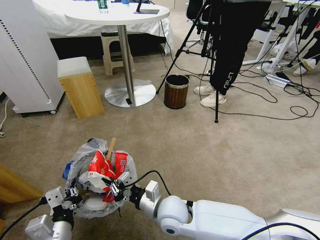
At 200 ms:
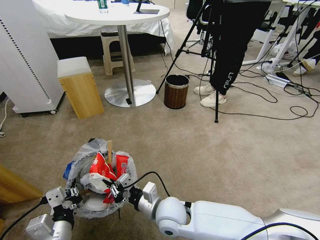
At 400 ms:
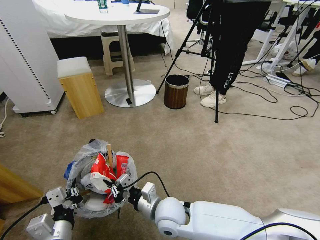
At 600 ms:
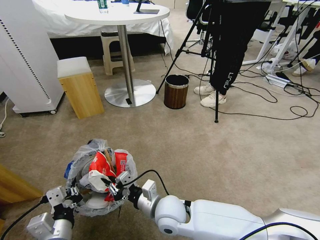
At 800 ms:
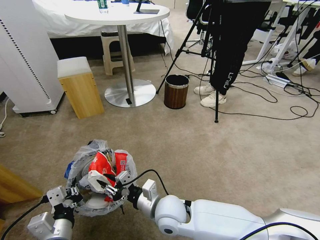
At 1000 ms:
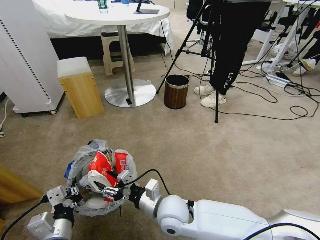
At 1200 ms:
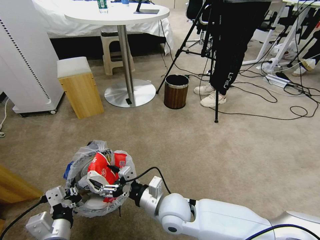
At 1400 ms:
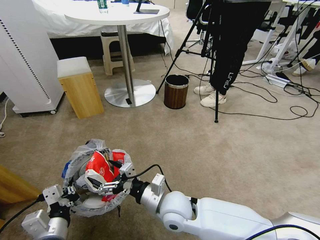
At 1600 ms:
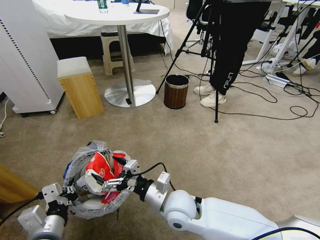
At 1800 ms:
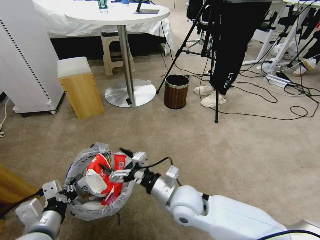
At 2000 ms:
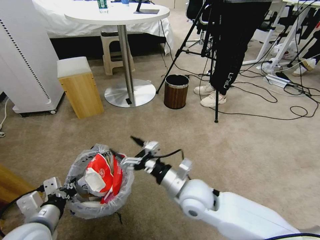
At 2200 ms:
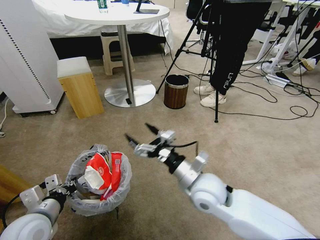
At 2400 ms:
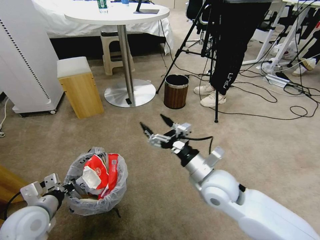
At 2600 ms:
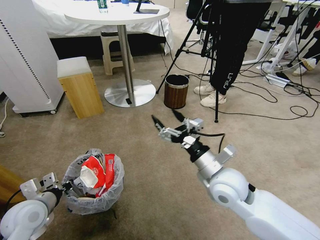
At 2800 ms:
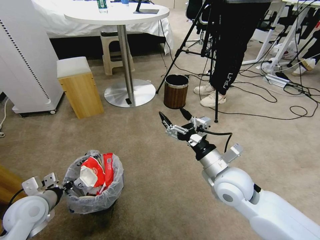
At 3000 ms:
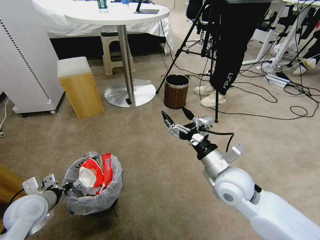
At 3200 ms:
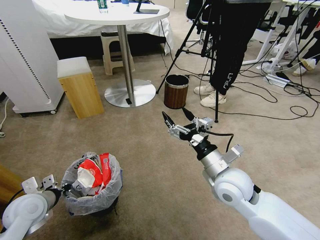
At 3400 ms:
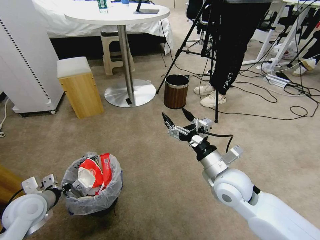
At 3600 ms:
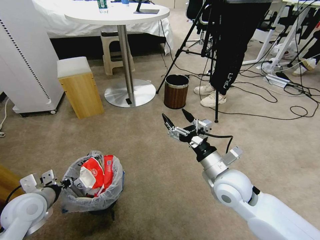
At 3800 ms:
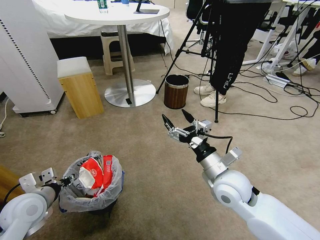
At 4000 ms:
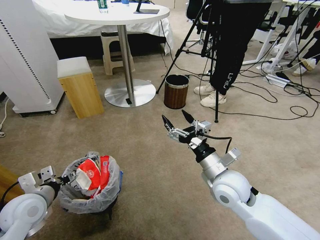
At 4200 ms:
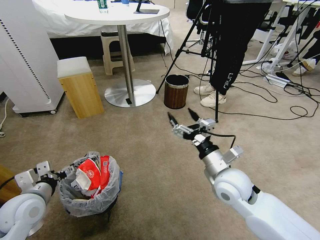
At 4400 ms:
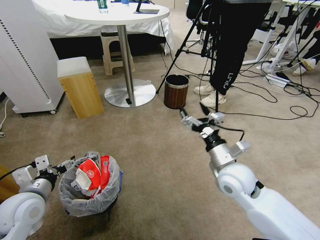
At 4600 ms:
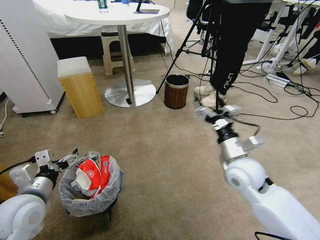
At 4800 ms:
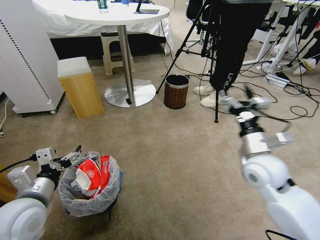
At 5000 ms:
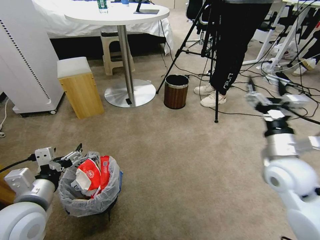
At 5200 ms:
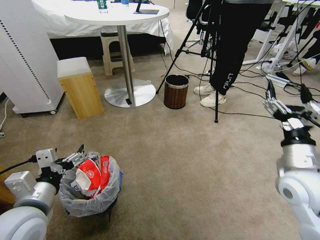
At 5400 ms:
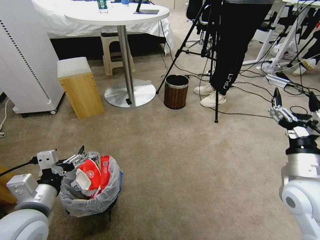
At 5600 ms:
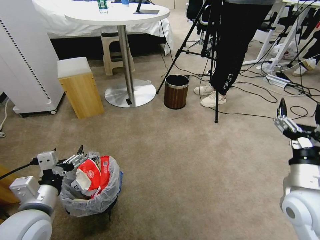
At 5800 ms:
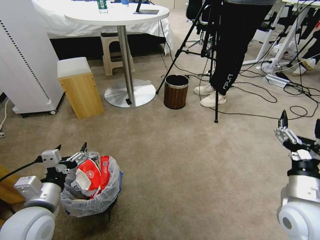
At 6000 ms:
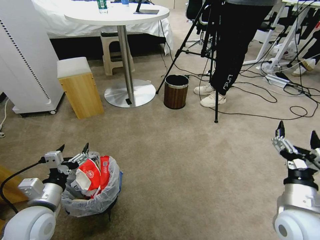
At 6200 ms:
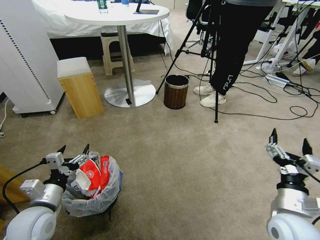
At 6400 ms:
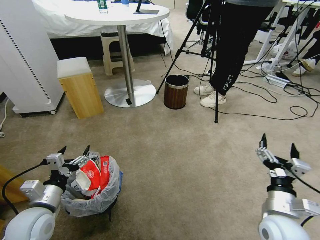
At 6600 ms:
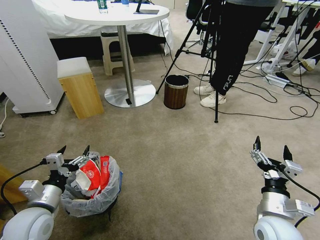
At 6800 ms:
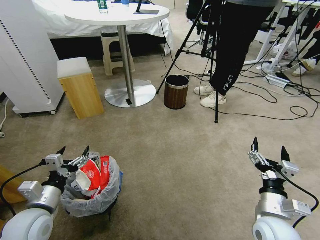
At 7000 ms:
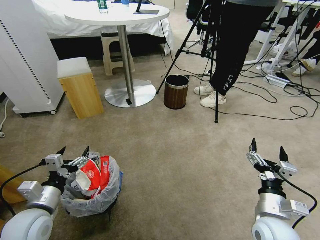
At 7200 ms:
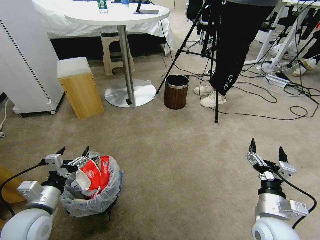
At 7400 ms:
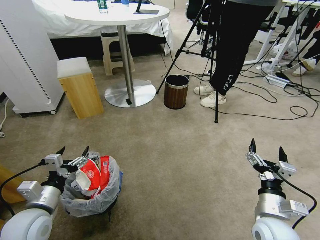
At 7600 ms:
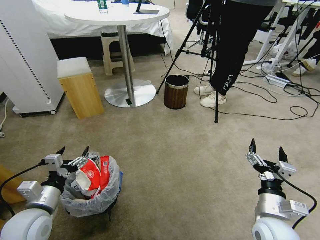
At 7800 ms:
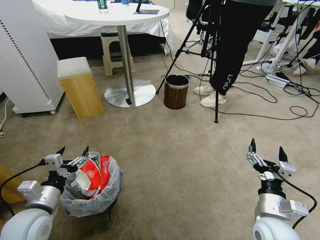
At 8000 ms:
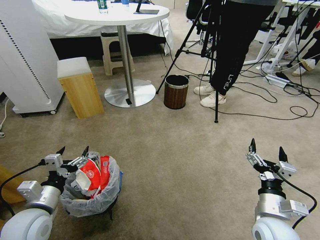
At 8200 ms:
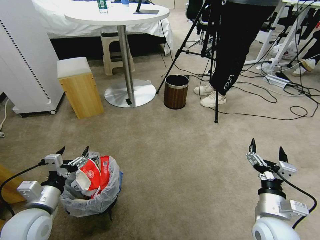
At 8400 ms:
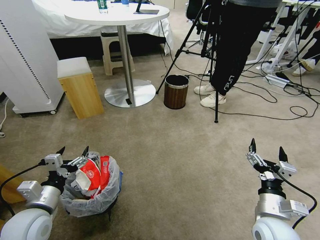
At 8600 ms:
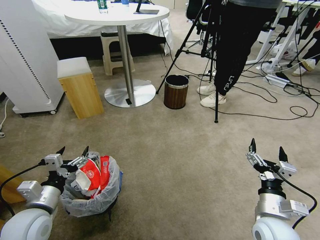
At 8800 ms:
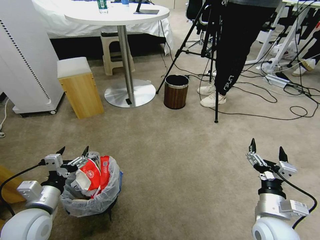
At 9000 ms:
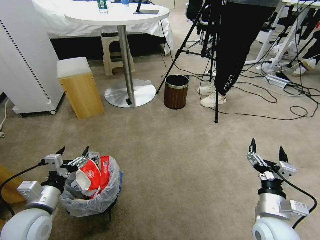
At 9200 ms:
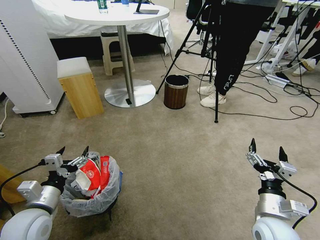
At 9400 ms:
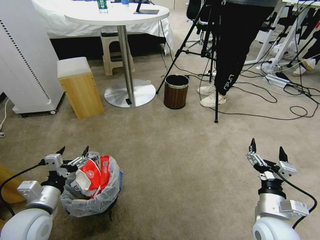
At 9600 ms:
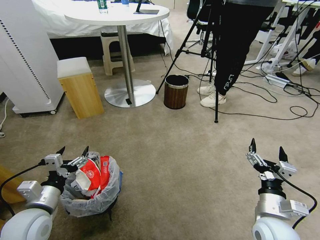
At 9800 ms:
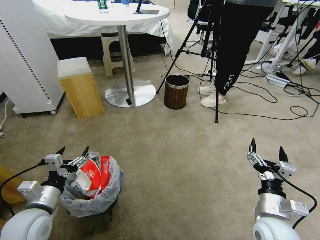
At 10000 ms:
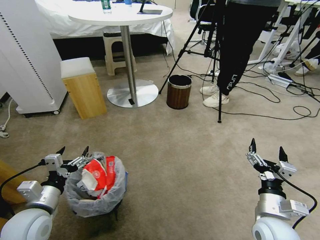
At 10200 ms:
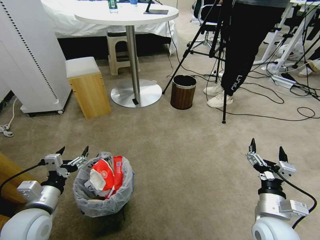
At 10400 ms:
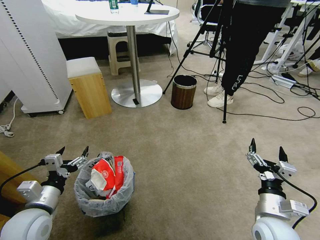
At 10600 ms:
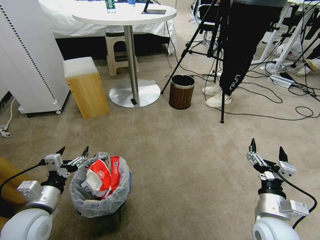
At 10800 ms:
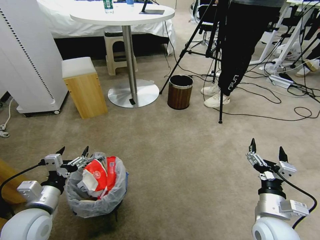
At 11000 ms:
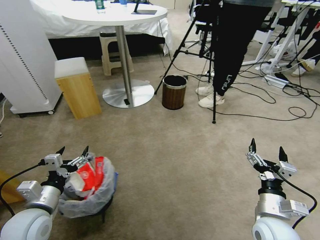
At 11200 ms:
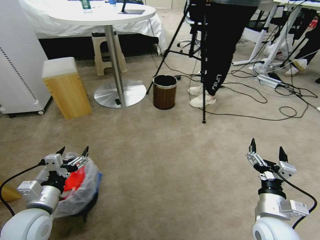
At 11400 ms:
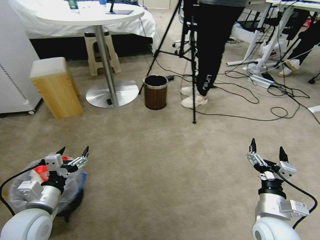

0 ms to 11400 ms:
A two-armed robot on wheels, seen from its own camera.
Task of the whole recording: Pick up the trash bin and place the garbage on the floor into it.
0 ms to 1400 ms: The right gripper opens.
1400 ms to 2800 ms: The right gripper heads to the right and upward, covering some 15 cm. The left gripper travels forward and to the left by roughly 15 cm.
2800 ms to 4200 ms: The left gripper opens up.
4200 ms to 5600 ms: The right gripper is displaced to the right and backward by approximately 15 cm; the left gripper travels to the right and backward by roughly 10 cm.
5600 ms to 7200 ms: The left gripper goes some 5 cm downward, while the right gripper heads downward, covering roughly 10 cm.
7200 ms to 10000 ms: Neither gripper changes place.

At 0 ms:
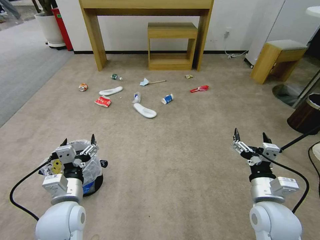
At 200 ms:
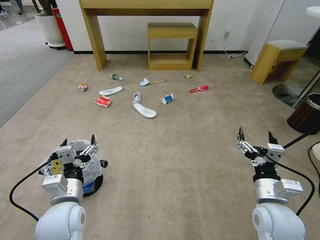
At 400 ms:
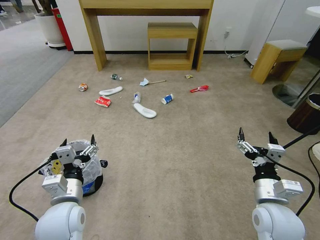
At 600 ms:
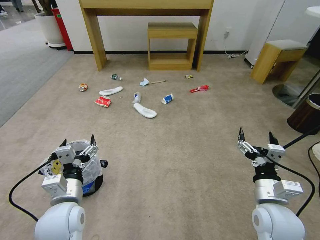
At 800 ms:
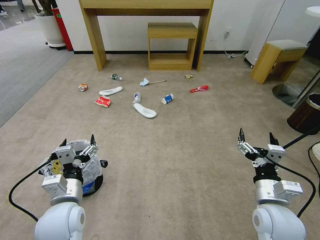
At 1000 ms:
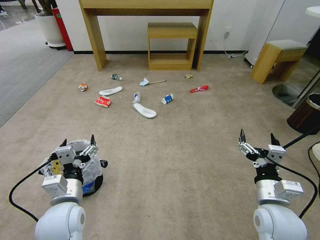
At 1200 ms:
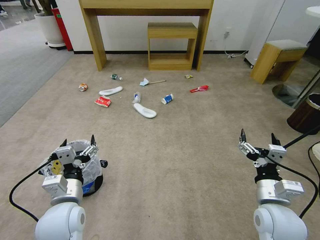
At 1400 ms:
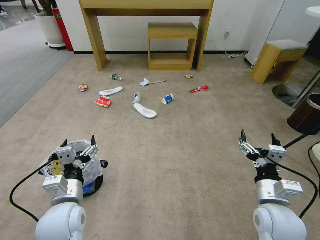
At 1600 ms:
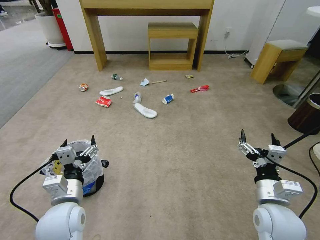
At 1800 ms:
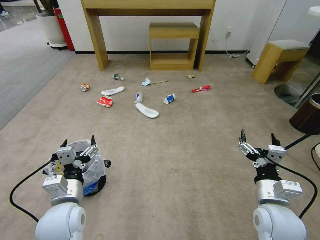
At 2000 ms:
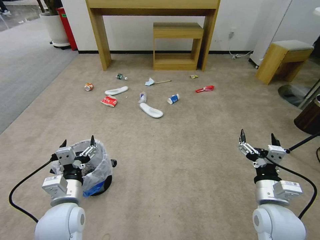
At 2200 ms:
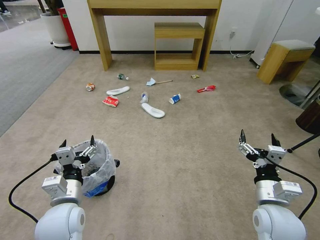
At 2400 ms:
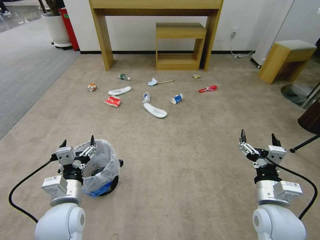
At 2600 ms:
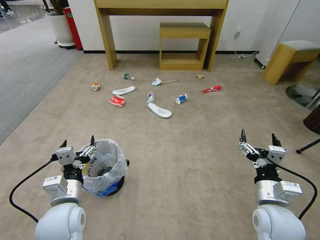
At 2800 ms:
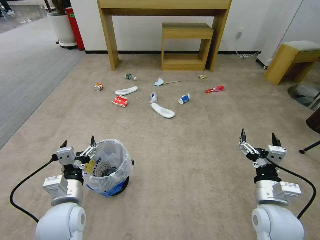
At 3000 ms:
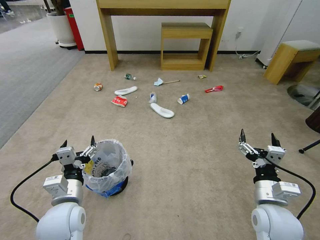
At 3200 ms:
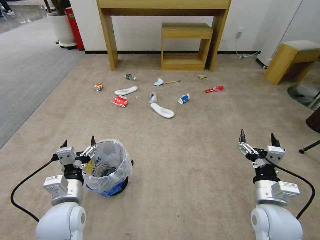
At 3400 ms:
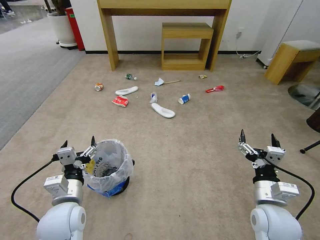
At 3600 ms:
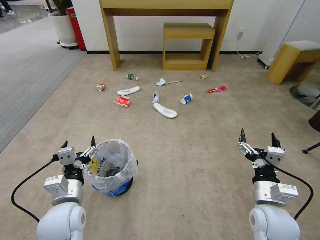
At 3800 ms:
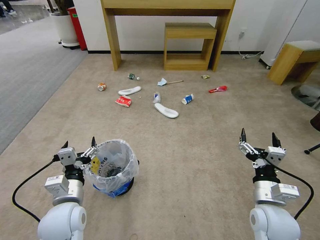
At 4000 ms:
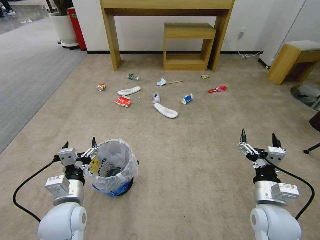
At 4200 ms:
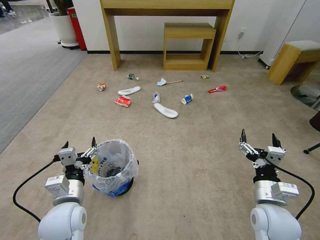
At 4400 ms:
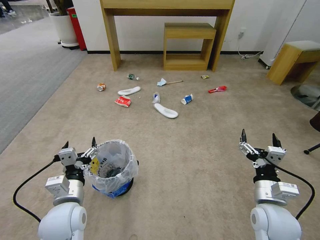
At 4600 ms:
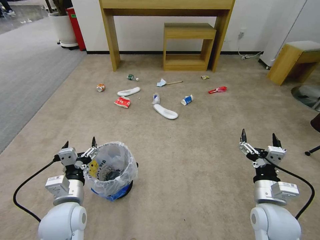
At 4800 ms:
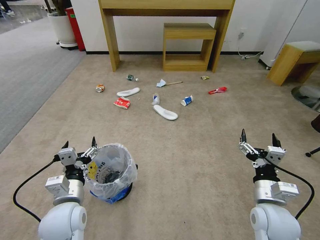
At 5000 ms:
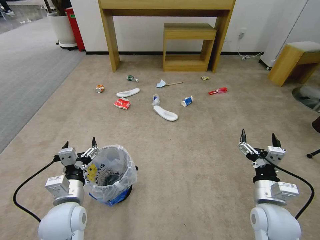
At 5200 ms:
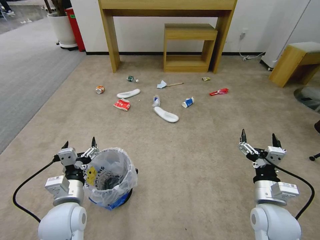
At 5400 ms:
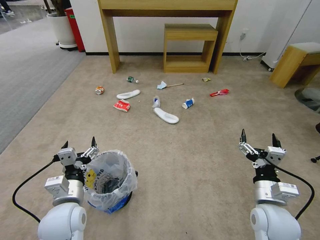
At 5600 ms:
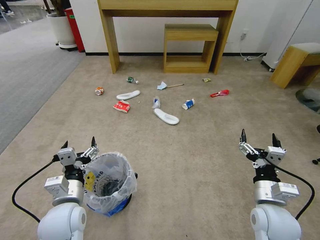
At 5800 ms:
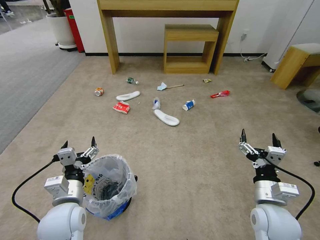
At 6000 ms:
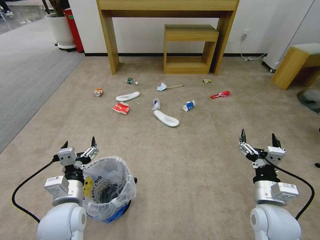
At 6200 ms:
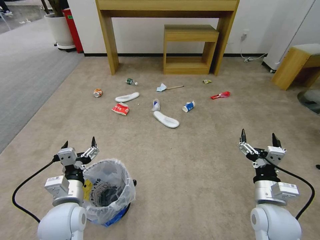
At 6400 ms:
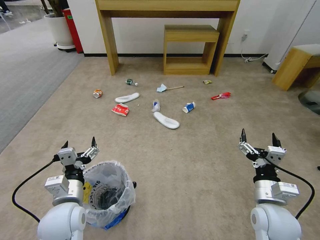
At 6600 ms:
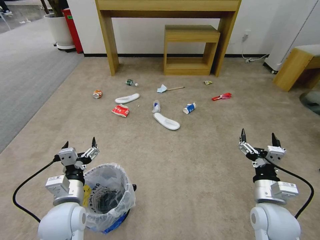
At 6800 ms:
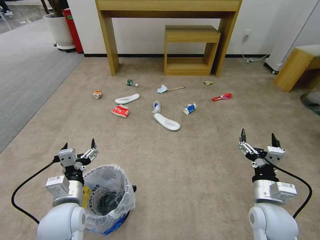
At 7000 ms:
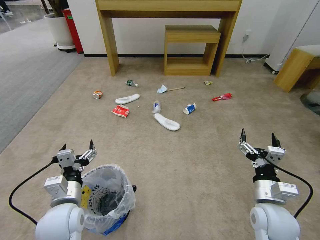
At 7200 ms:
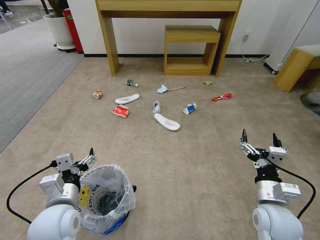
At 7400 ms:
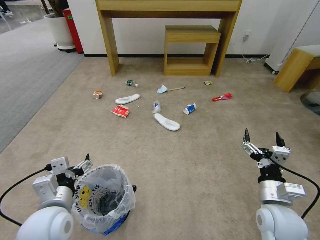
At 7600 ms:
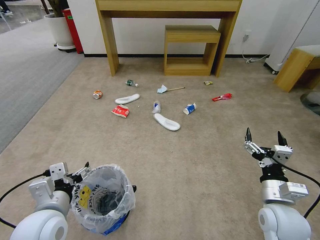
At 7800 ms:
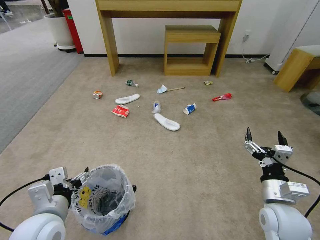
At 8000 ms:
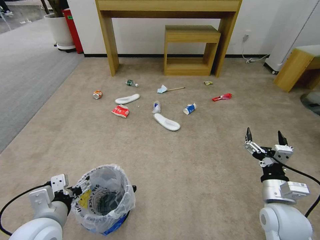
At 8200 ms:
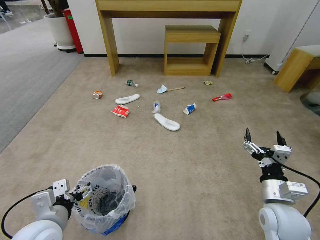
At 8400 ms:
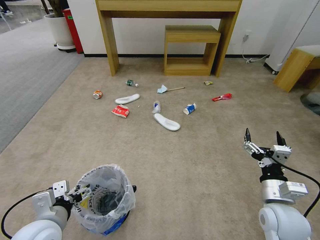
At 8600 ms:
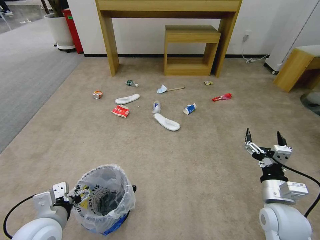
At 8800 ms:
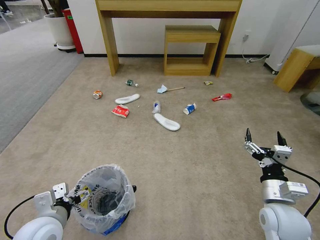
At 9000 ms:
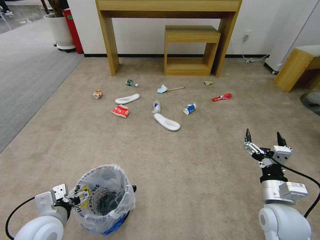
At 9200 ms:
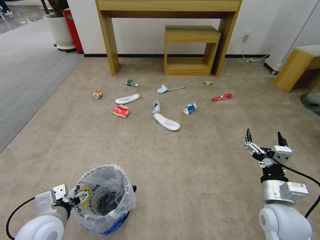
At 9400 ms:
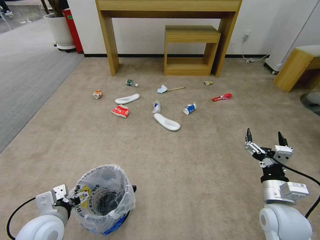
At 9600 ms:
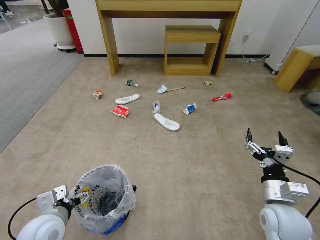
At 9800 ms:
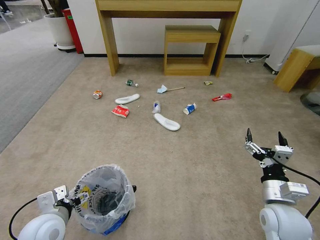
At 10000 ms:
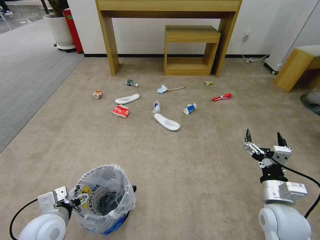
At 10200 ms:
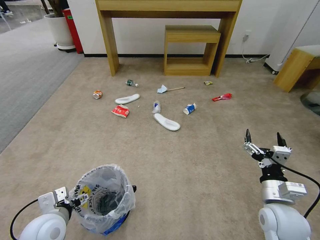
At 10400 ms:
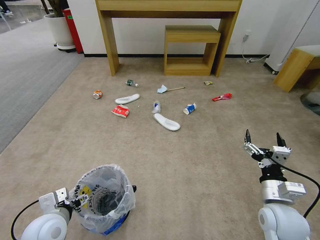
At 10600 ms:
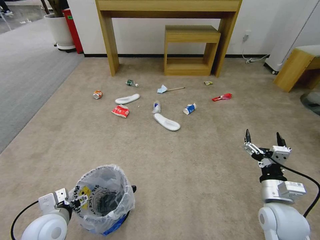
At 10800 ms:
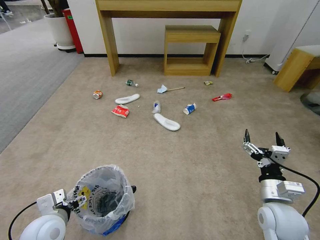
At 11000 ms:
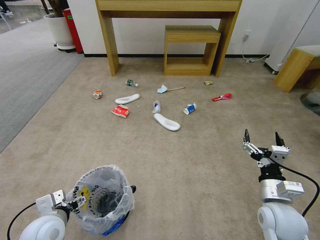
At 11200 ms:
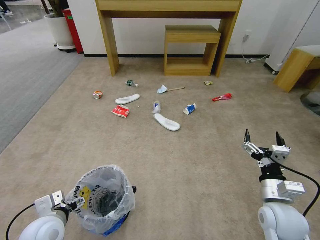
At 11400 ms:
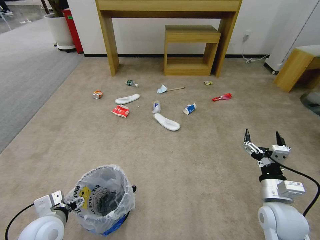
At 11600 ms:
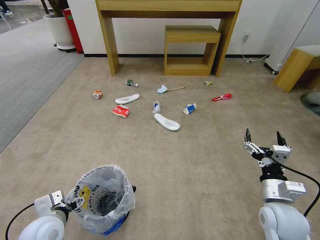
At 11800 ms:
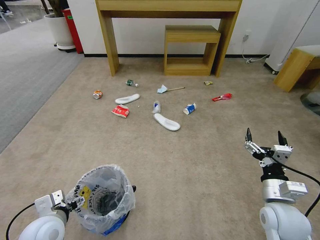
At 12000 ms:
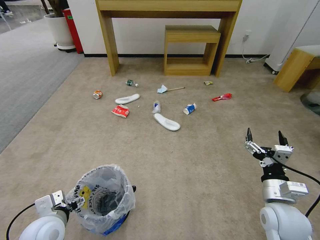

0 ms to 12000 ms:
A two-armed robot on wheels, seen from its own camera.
Task of the whole recording: Pick up the trash bin and place the garbage on the floor into it.
1600 ms to 3000 ms: The two grippers keep their place.
3000 ms to 6000 ms: Both grippers stay put.
6000 ms to 7600 ms: The left gripper ends up roughly 5 cm from where it was.
7600 ms to 9000 ms: The left gripper shifts about 5 cm downward.
9000 ms to 10400 ms: The grippers stay close to where they were, moving slightly.
10400 ms to 12000 ms: Both grippers stay put.
